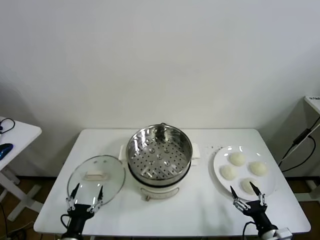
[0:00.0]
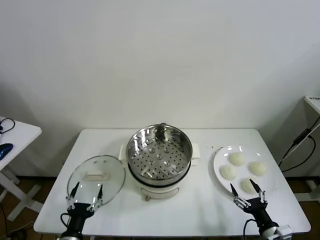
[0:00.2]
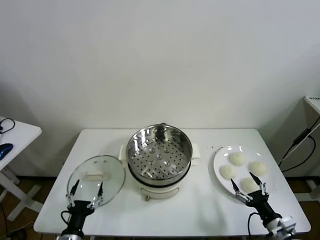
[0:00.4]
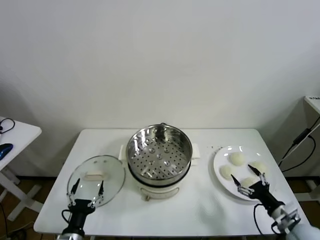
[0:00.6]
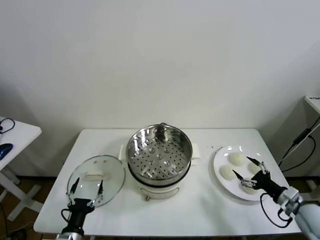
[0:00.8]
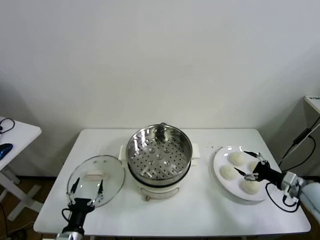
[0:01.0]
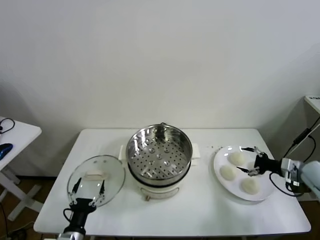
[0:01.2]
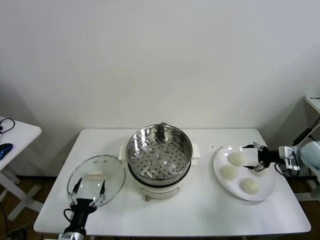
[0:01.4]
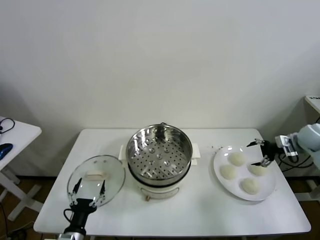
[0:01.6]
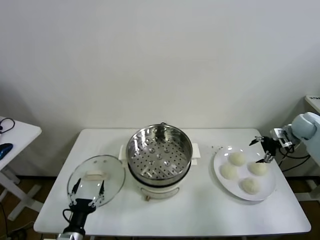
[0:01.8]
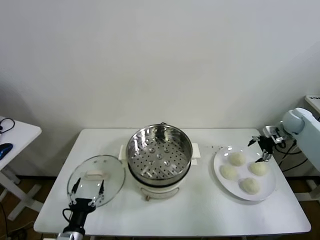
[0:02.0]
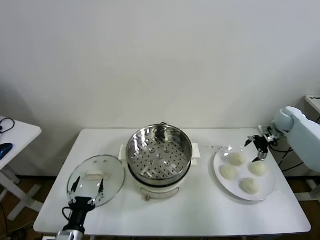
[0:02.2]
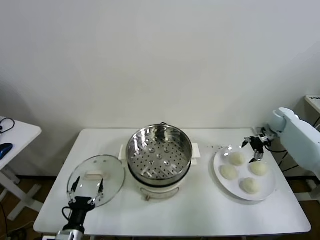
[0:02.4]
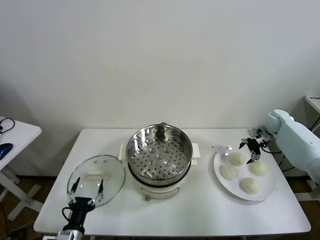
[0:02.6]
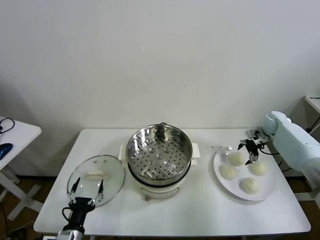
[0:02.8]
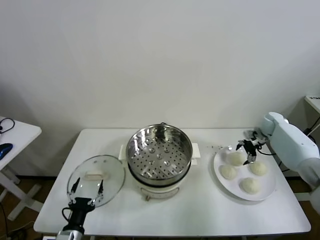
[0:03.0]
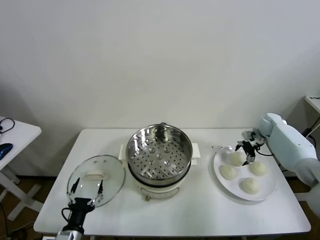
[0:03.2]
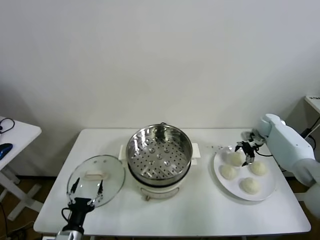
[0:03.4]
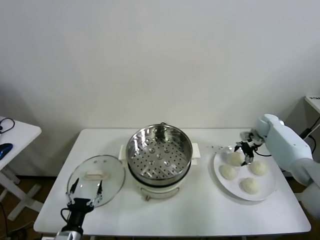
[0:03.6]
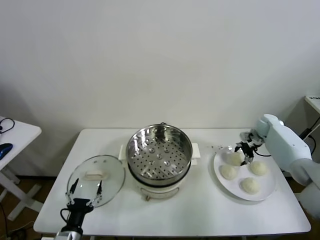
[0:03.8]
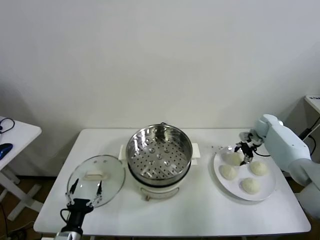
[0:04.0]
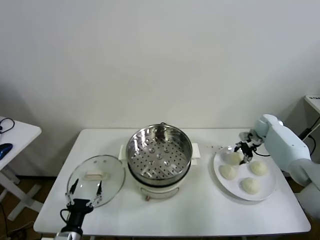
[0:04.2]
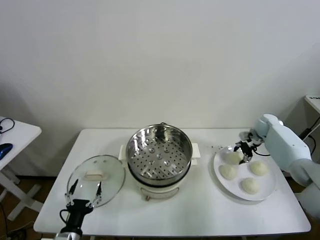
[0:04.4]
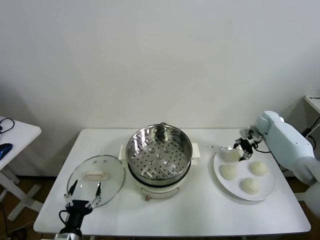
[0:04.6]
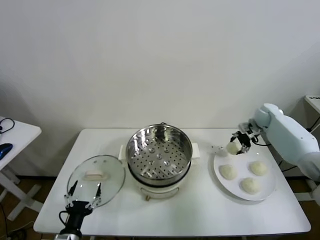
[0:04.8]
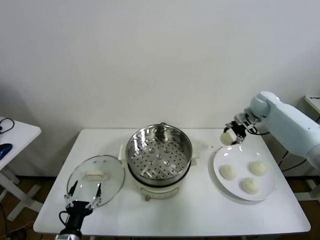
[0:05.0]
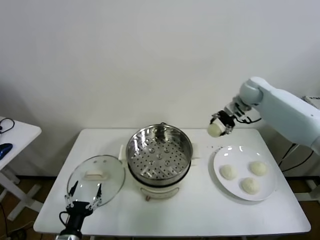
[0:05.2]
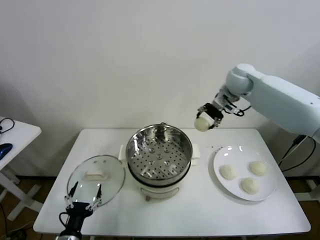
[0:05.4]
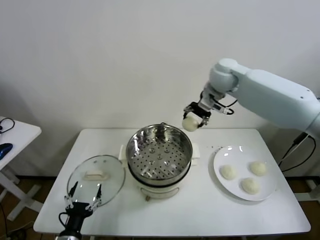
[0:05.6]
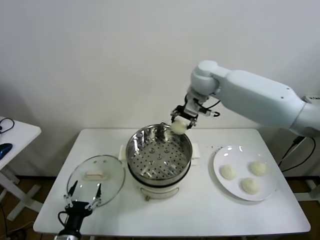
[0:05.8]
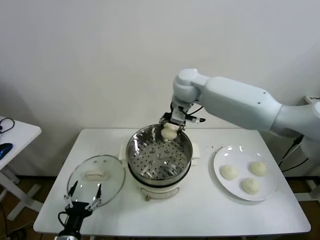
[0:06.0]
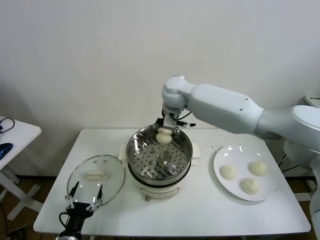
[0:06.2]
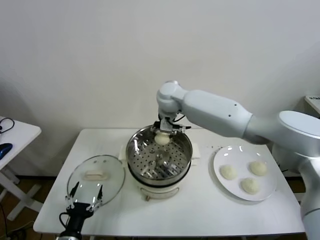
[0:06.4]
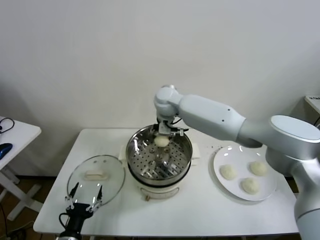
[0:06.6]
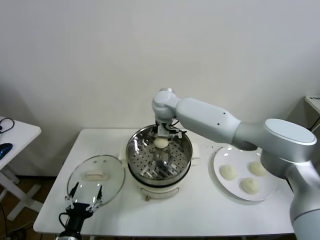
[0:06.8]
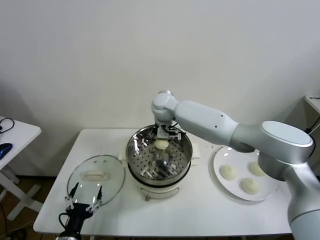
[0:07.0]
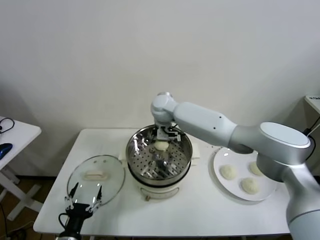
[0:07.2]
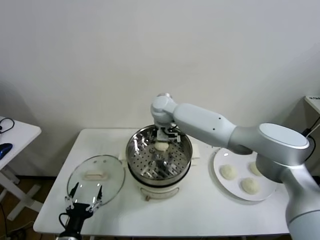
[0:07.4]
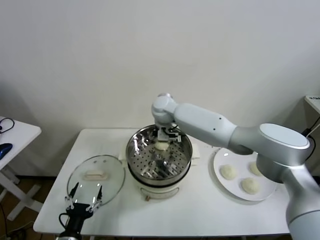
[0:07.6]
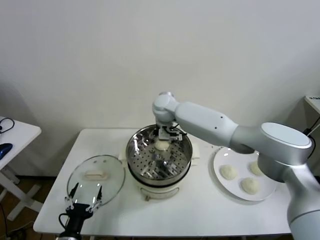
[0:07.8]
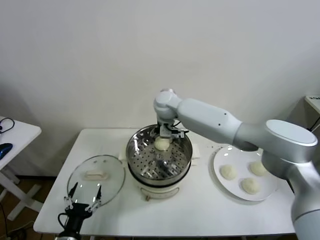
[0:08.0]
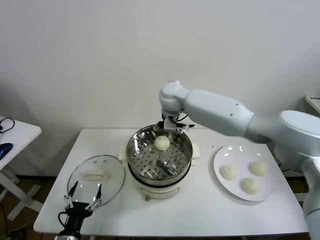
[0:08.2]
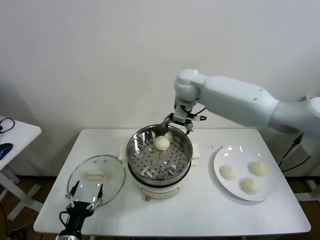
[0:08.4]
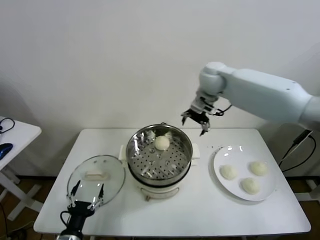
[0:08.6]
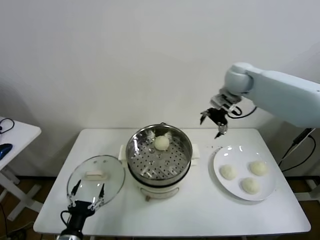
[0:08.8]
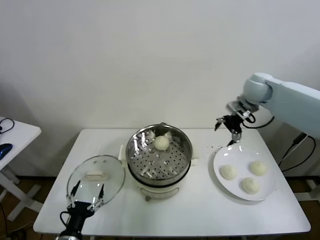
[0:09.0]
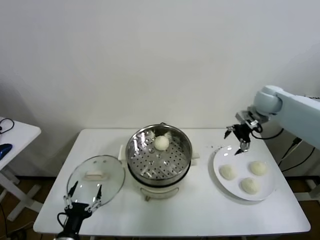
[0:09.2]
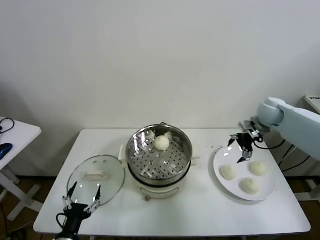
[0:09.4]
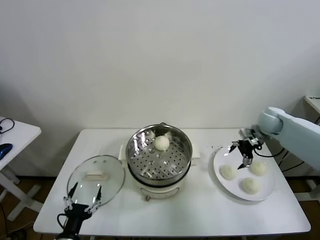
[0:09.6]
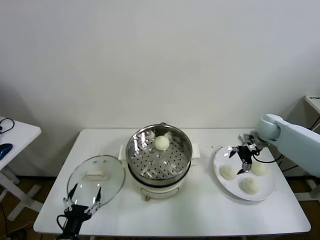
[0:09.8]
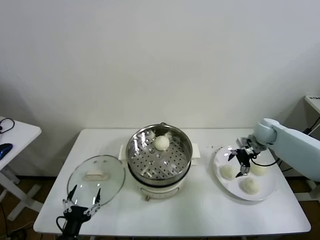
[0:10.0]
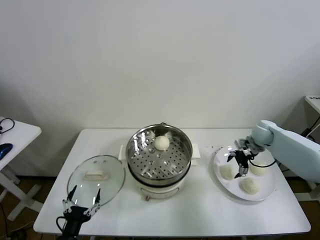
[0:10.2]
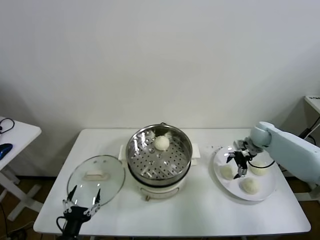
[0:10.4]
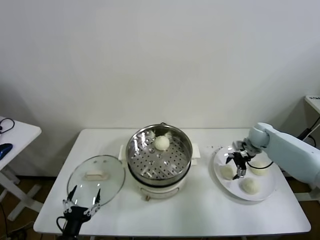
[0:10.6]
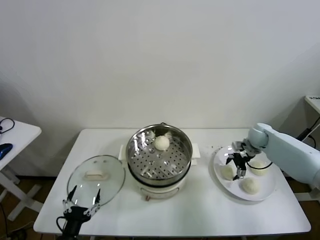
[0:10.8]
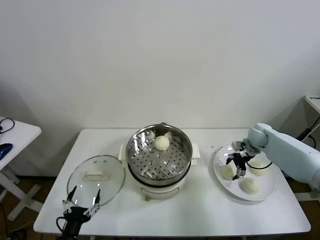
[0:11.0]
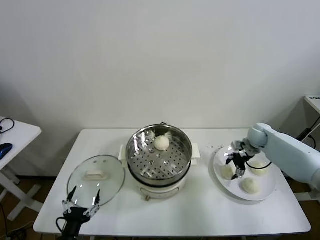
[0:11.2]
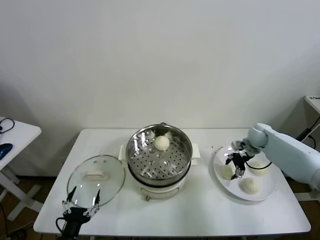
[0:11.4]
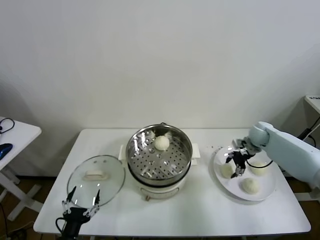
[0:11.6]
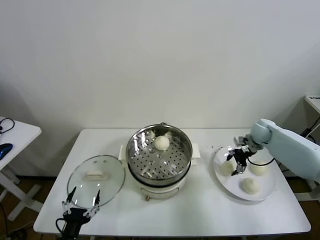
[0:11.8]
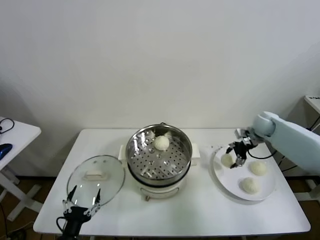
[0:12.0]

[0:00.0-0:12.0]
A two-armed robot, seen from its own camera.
Task of the whole recording: take steamed baozi put them in steamer.
Step, 0.0 to 4.0 s: Grasp the baozi in the plate with right gripper.
Step, 4.2 to 8.0 s: Place the baozi on the steamer with right gripper.
Step, 8.2 to 11.2 s: Grasp the baozi in the plate with right gripper.
1.6 to 3.0 s: The right gripper is displaced forward, to the left and downward by approximately 15 cm.
3.0 to 4.4 s: The right gripper closes up.
4.4 to 6.0 s: The right gripper moves to the left and upward, some 40 cm.
6.0 to 7.6 s: The right gripper is displaced downward by approximately 10 cm, and opens up.
7.6 to 9.0 s: The right gripper is displaced to the right by roughly 35 cm.
9.0 to 10.4 s: The right gripper shifts about 20 cm downward.
10.4 to 12.0 s: The right gripper goes approximately 5 cm upward, and closes its fingers.

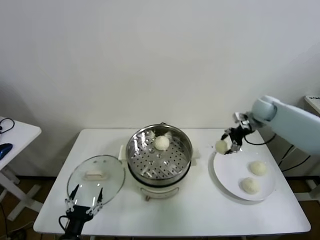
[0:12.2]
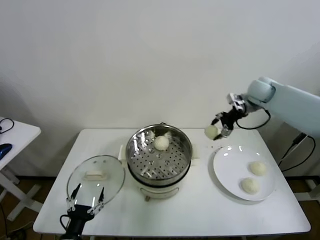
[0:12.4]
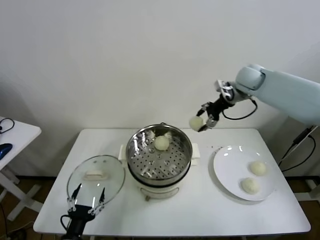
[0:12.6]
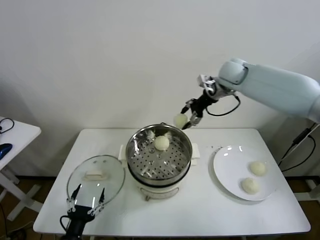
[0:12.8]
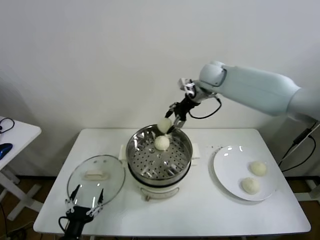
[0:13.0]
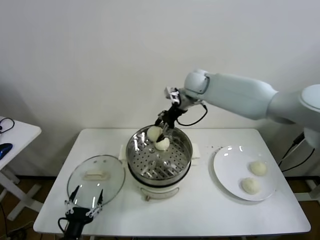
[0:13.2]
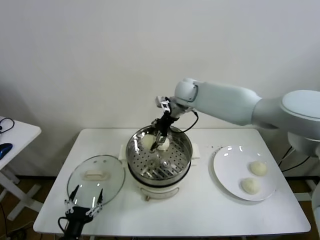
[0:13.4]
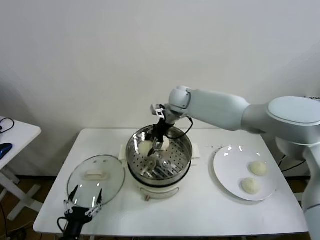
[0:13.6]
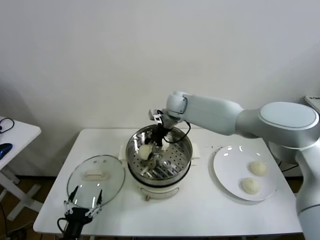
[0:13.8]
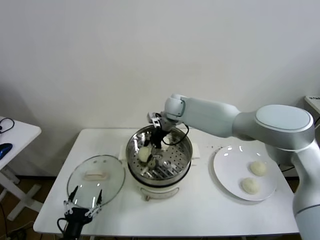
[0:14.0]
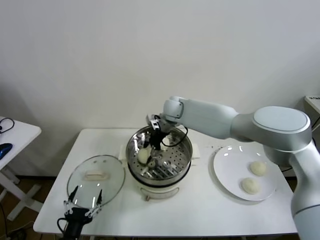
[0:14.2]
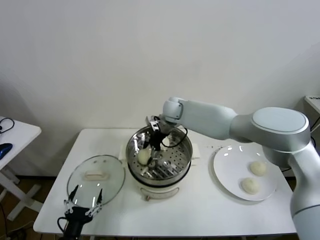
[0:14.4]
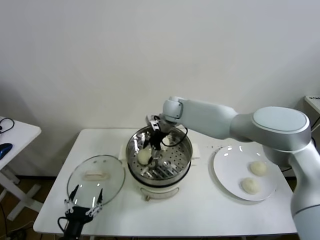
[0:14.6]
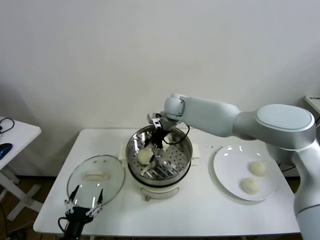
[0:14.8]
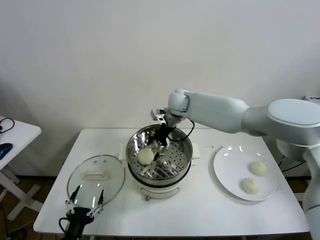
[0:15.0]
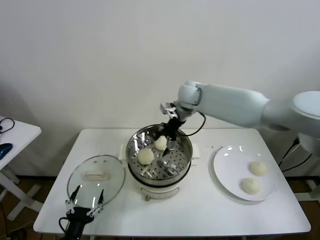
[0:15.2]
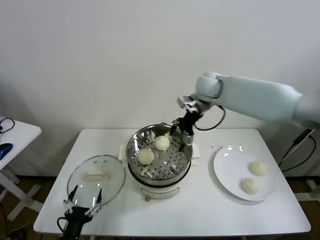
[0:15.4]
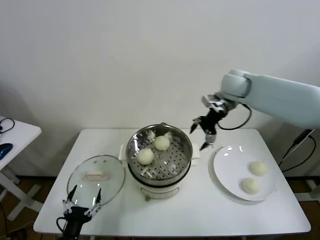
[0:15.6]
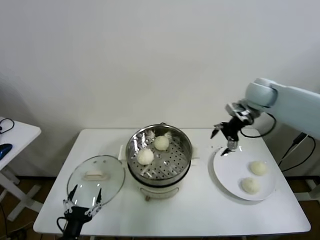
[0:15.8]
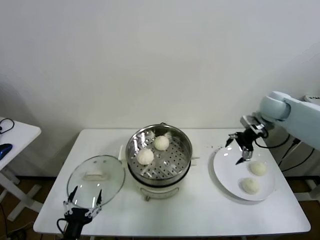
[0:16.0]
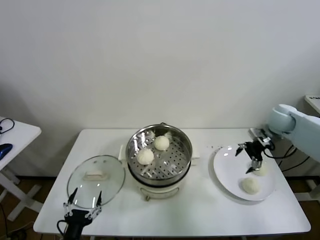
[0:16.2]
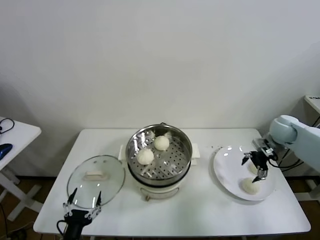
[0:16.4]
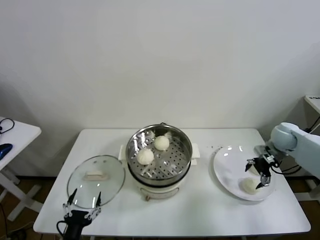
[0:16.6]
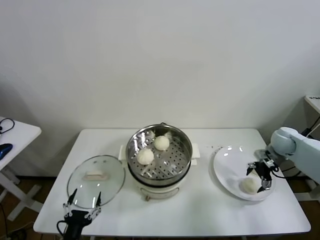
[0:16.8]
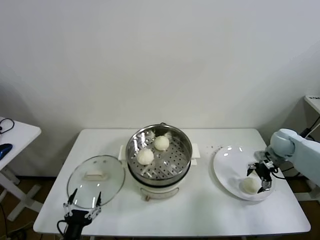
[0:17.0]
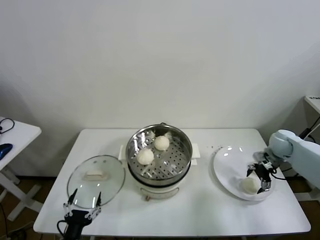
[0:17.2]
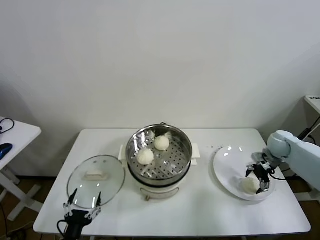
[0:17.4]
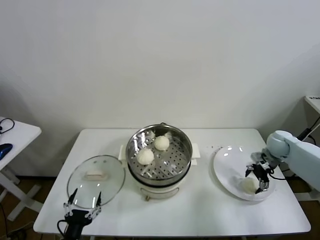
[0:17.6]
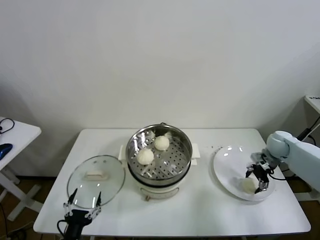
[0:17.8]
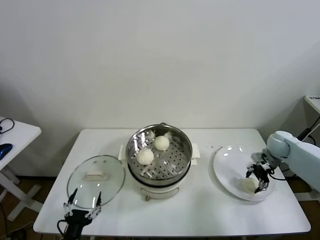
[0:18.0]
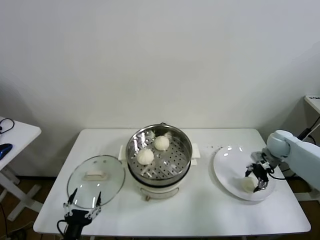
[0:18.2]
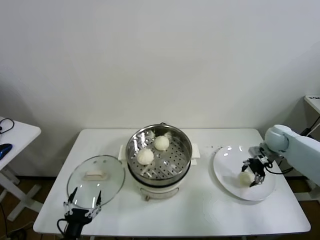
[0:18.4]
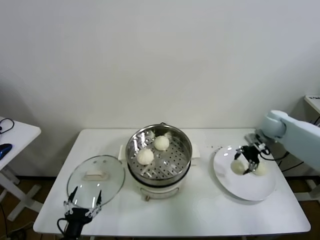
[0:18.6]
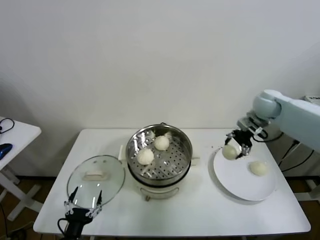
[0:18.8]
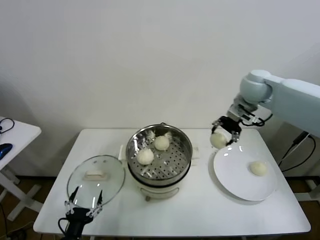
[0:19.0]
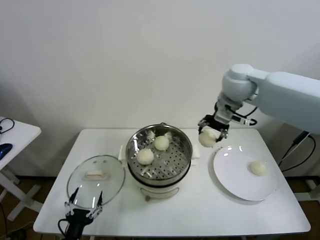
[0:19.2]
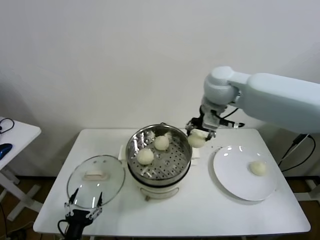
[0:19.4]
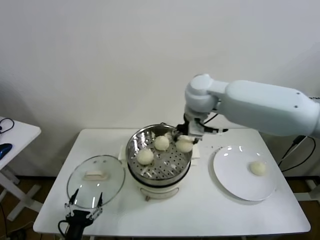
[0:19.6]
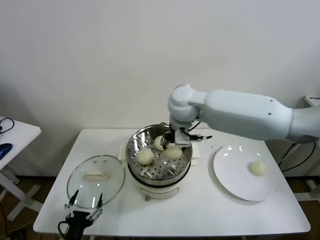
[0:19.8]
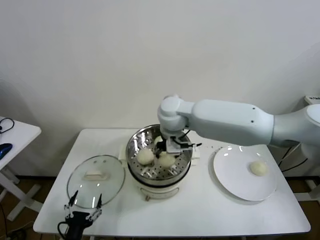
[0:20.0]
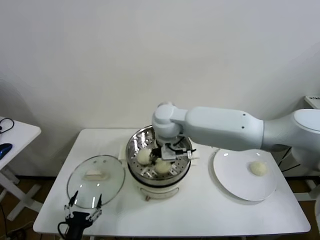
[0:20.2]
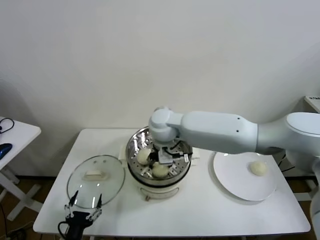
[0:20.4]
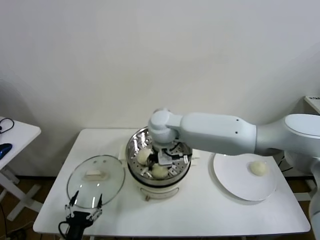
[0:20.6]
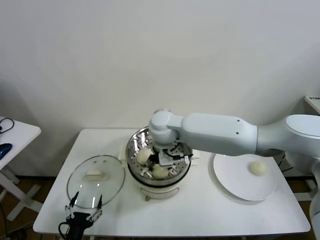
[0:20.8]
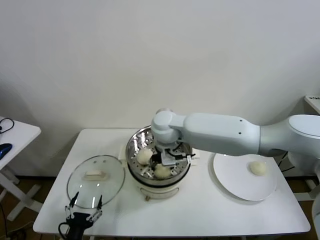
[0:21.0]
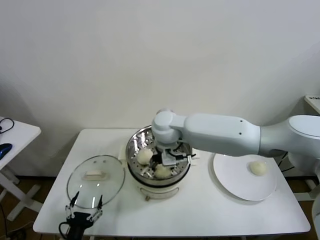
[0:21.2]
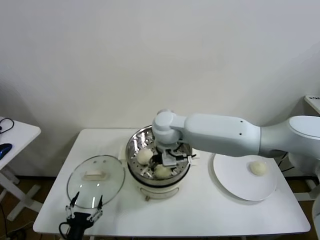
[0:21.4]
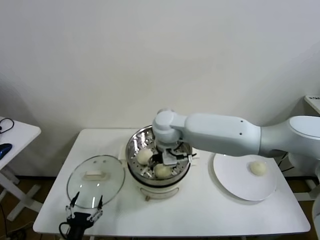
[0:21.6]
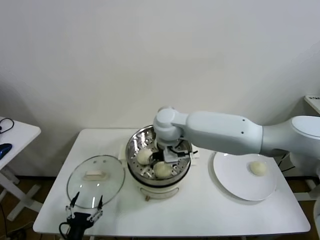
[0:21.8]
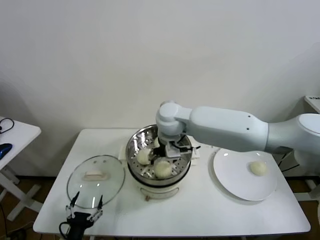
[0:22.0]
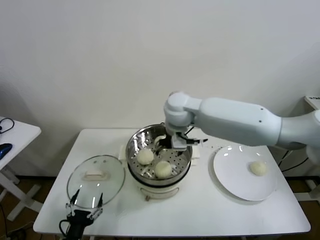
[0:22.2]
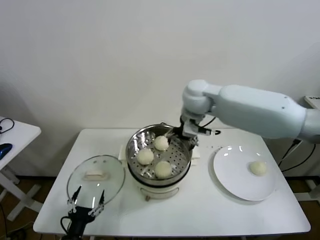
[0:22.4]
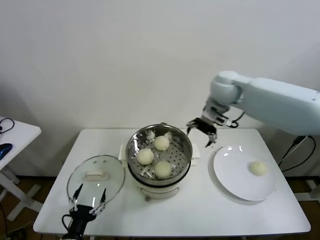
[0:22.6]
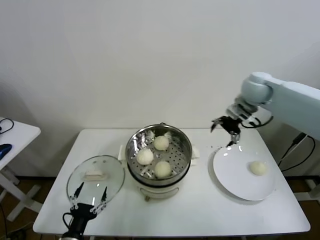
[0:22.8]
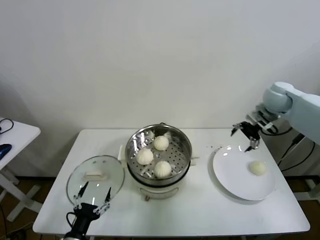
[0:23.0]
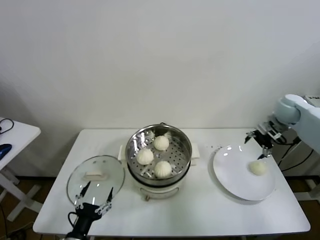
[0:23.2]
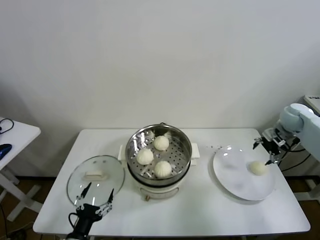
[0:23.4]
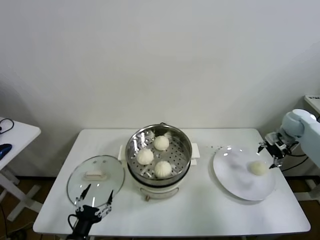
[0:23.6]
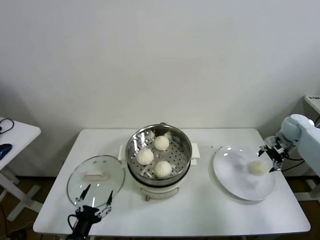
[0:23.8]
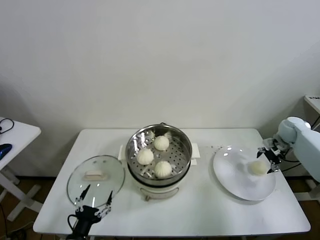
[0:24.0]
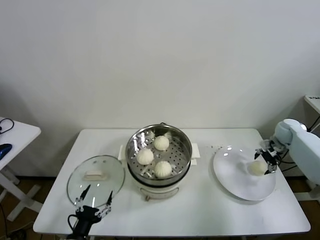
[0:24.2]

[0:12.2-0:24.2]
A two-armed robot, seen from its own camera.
Task of the whole recording: take steamed baozi put them in steamer.
Step, 12.2 to 14.8 s: Place the baozi on the steamer with right gripper.
Step, 15.0 to 18.0 s: Grasp the baozi in the plate with right gripper.
Step, 18.2 to 22.0 s: Place the baozi on the steamer with right gripper.
12.2 to 13.8 s: The right gripper travels to the left by about 30 cm.
13.8 to 15.2 s: The right gripper heads upward and to the right, covering about 10 cm, and opens its fingers.
15.2 to 16.6 s: The right gripper travels to the right and downward by some 35 cm.
16.6 to 18.2 s: The right gripper closes.
18.2 to 19.8 s: The right gripper shifts approximately 40 cm to the left and upward.
19.8 to 21.2 s: The right gripper shifts some 5 cm downward.
21.2 to 22.6 s: The right gripper is displaced to the right and upward by some 20 cm, and opens its fingers.
22.6 to 24.2 s: The right gripper moves to the right and downward, roughly 35 cm.
